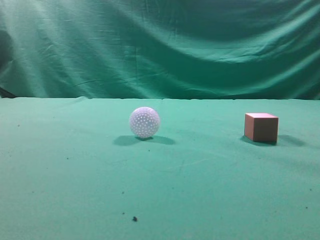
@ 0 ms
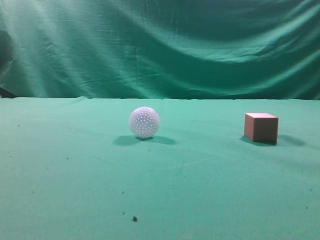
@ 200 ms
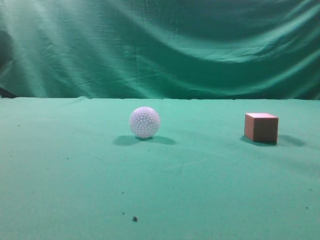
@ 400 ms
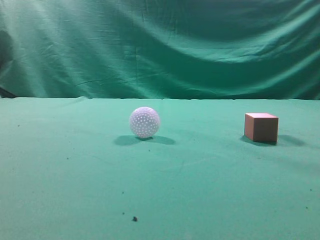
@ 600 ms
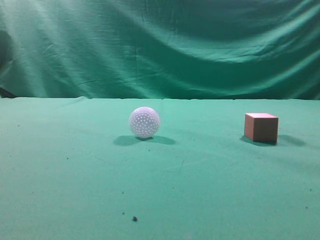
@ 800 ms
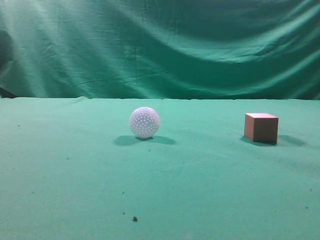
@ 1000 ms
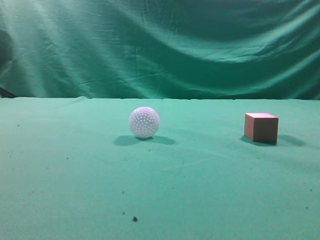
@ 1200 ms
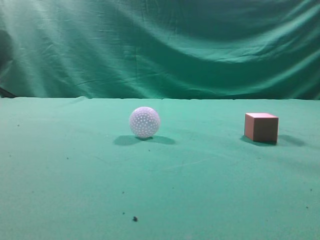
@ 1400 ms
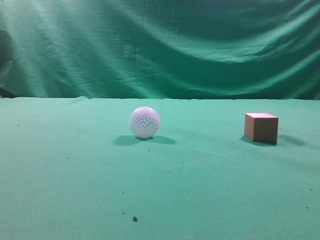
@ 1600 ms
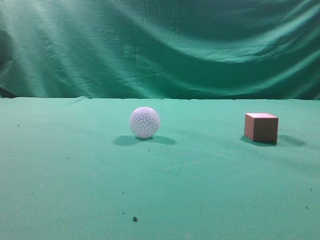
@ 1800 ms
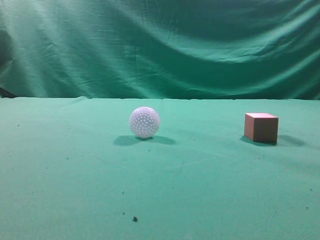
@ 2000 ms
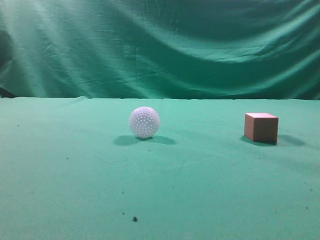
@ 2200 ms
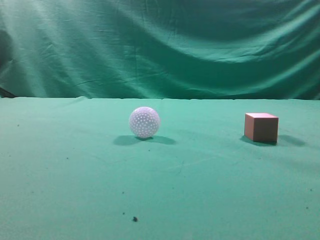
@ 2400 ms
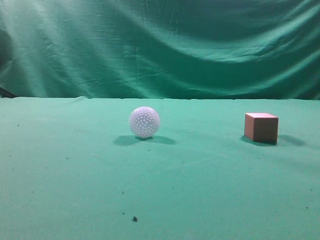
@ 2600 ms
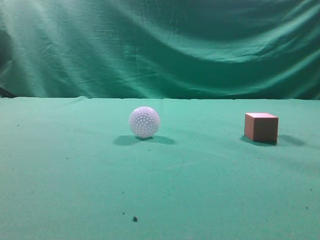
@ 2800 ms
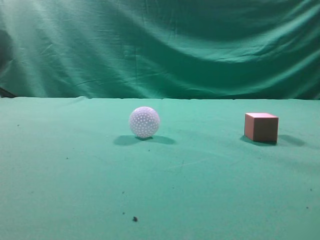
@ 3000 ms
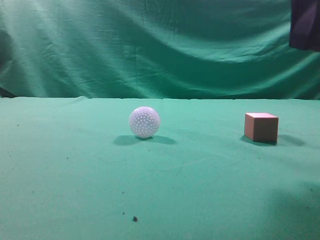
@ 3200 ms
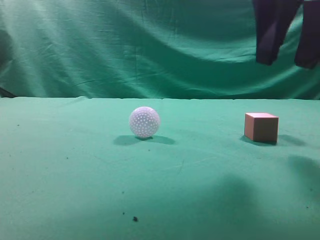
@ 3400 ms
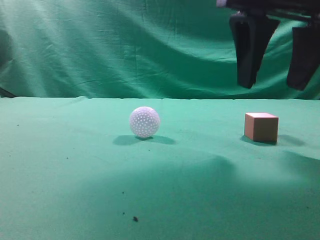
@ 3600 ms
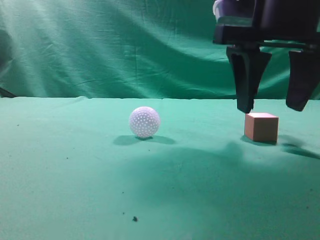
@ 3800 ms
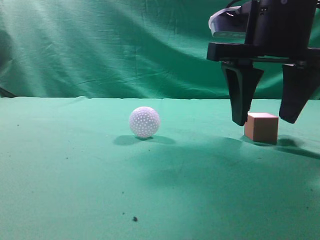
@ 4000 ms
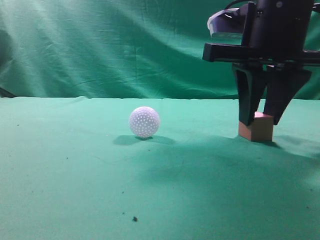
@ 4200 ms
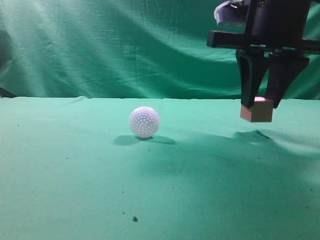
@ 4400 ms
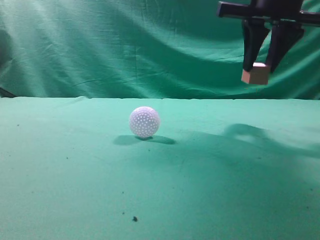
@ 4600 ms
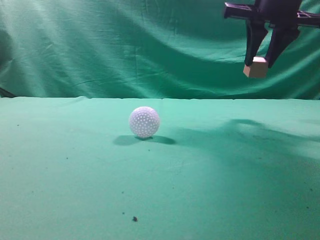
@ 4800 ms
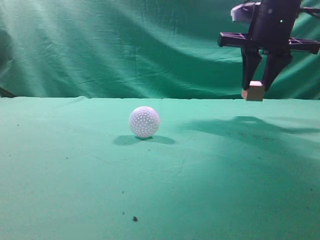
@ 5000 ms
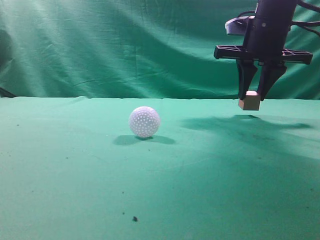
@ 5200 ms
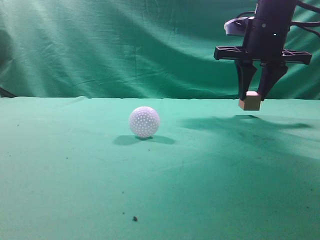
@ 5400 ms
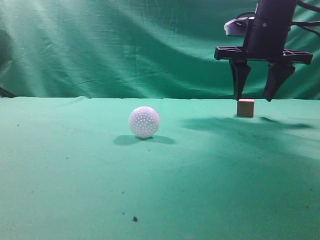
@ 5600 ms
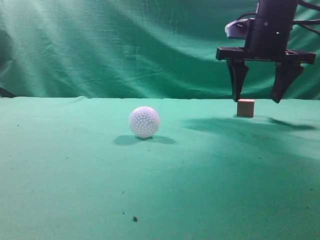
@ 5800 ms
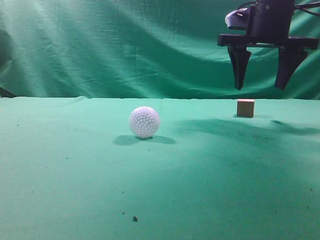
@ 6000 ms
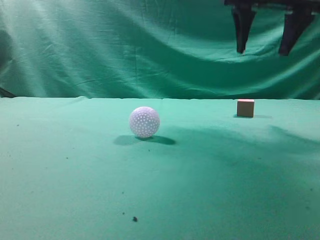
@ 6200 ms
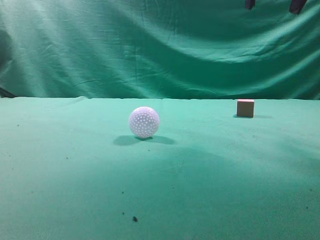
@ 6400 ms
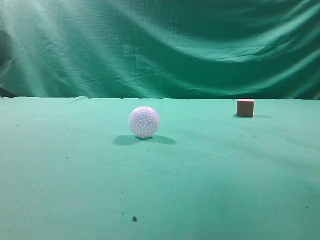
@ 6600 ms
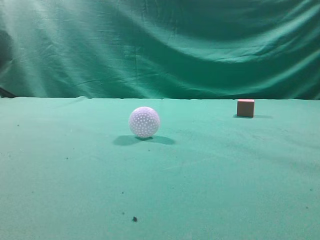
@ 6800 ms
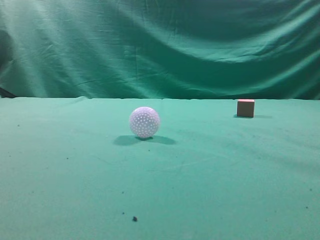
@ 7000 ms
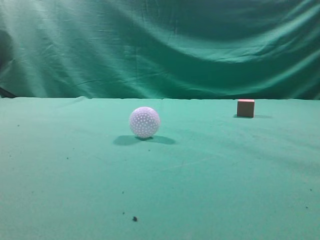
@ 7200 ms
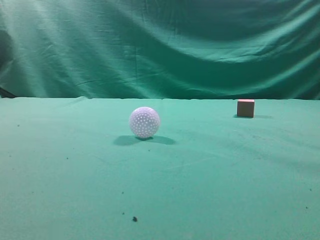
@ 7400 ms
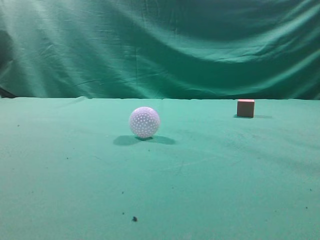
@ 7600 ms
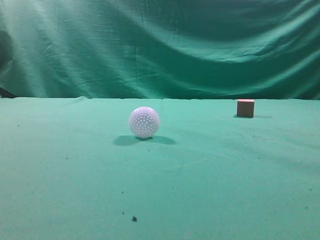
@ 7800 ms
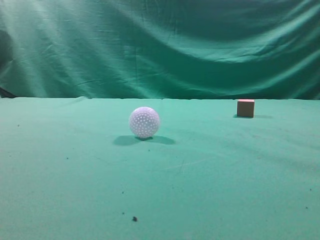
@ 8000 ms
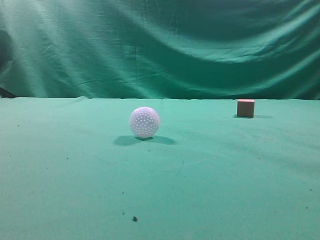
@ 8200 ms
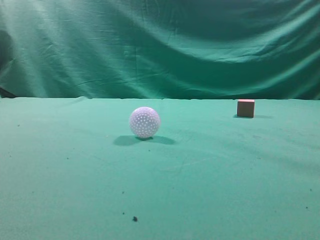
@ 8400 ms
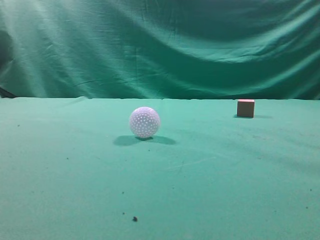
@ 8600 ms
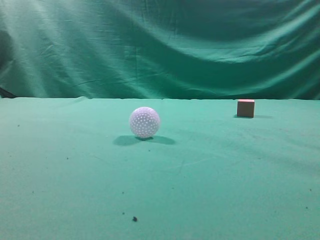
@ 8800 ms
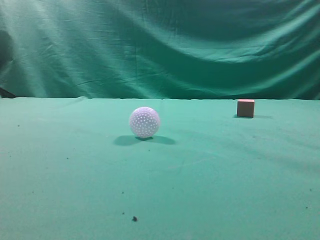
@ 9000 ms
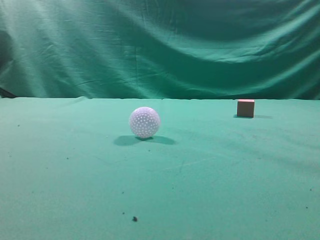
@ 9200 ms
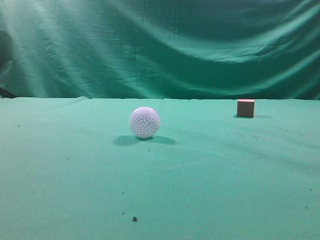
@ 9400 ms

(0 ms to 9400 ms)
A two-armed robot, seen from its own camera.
Task of the whole recording: pick up the cube block and place it in another position on the table.
Step, 0 ms - 4200 ms: Pick up the small cube.
Step, 4400 ms - 5600 ms: Place the small cube on the ahead of the table.
1600 ms - 3200 ms: The right gripper heads forward and to the left, covering roughly 25 cm, and opens up.
3200 ms - 4800 ms: The right gripper moves forward, roughly 15 cm, and opens, then closes again.
4800 ms - 6200 ms: The right gripper heads upward, covering about 5 cm, and opens its fingers.
6200 ms - 7800 ms: The right gripper goes about 30 cm backward, and closes.
